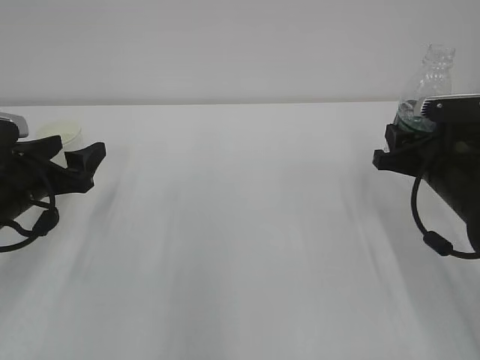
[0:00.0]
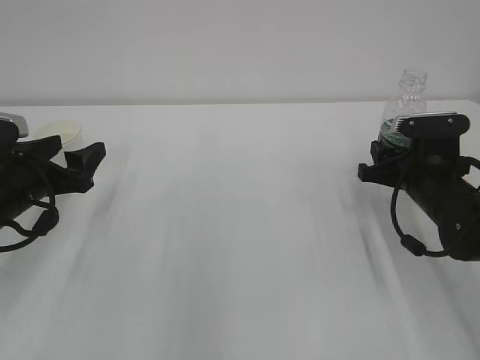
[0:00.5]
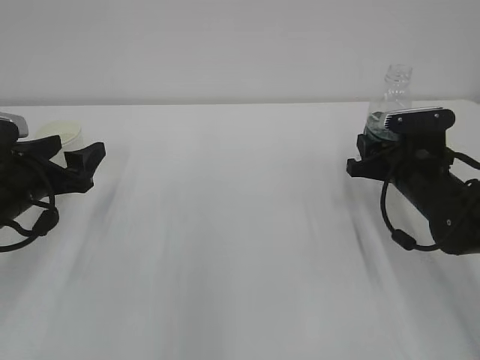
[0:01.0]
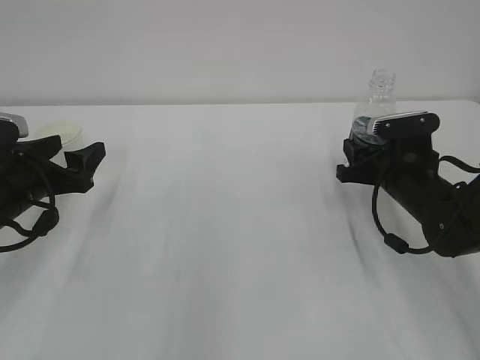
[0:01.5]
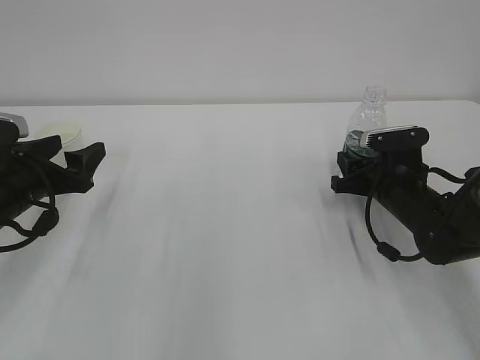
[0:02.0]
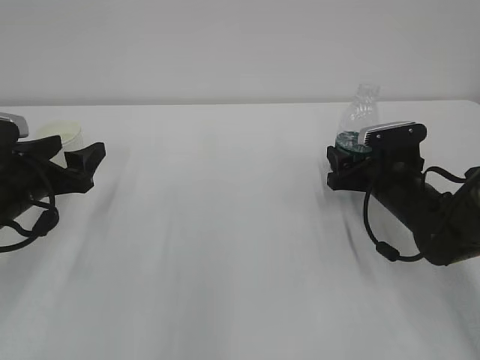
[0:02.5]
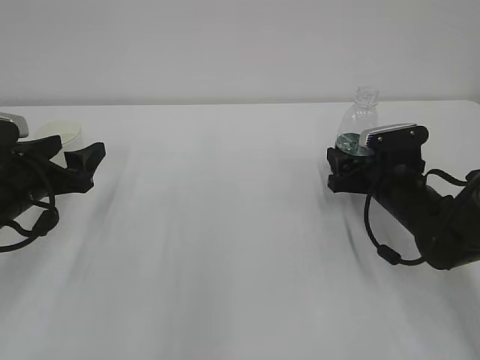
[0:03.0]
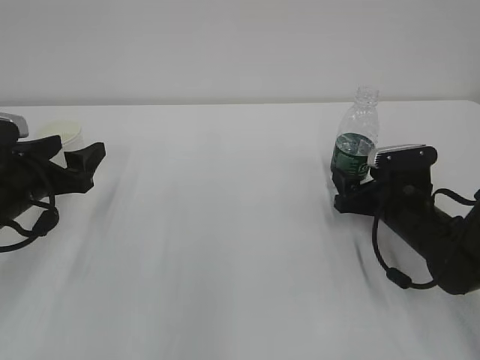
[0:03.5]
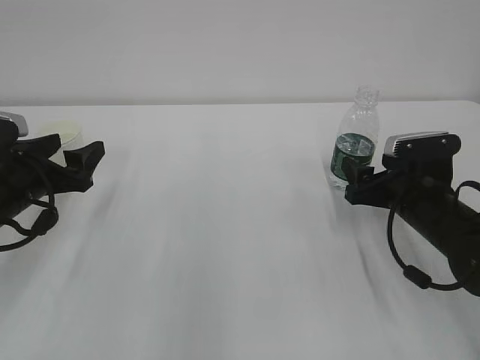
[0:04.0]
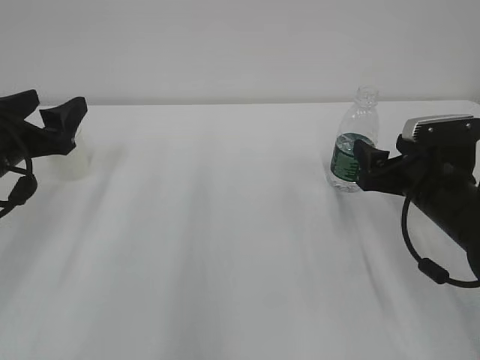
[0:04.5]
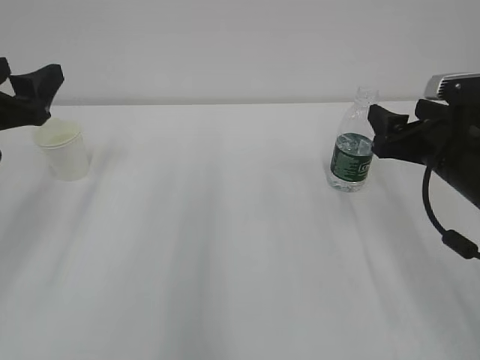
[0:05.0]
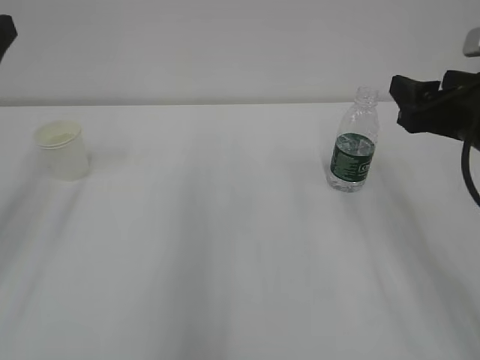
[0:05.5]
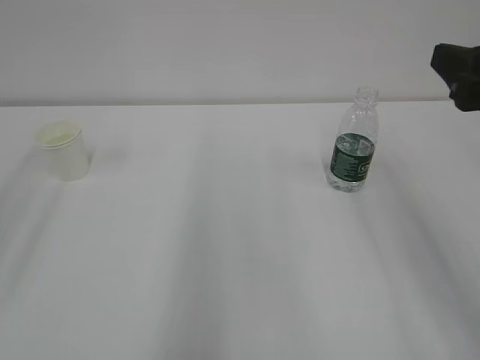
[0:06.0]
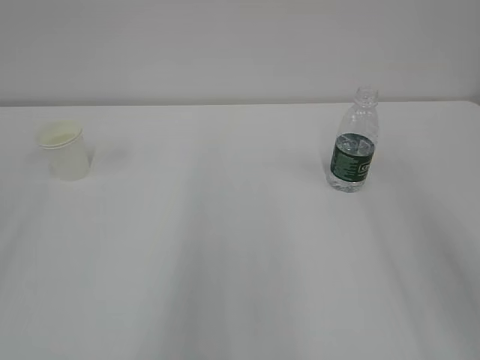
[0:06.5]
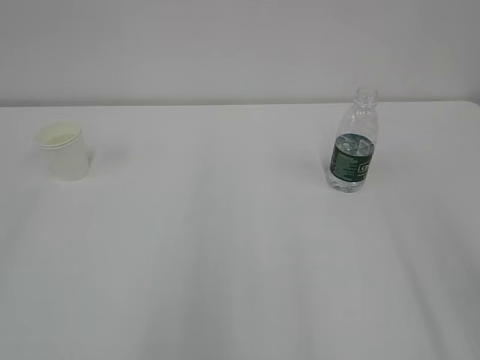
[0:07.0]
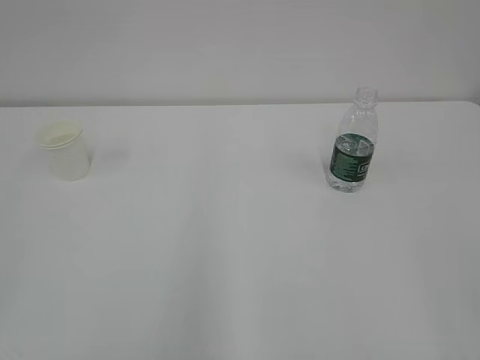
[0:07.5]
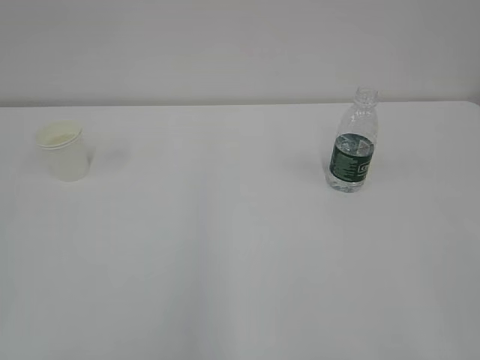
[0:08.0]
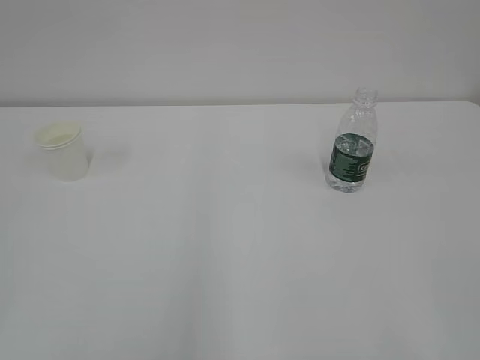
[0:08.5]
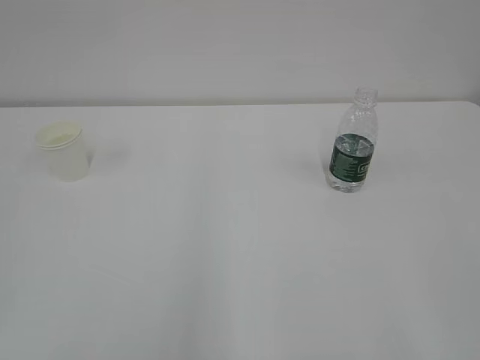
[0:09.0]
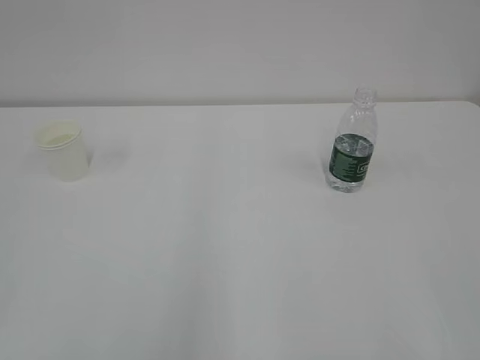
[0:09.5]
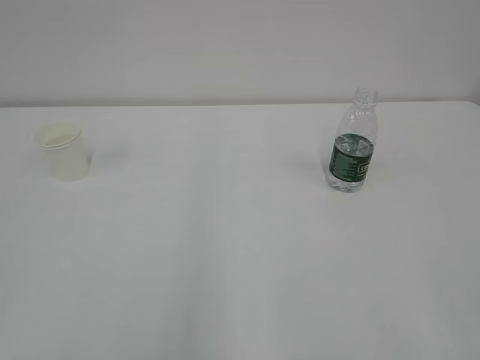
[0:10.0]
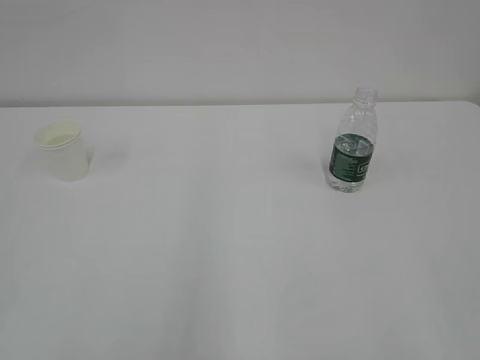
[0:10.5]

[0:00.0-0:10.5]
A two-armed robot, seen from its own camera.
0:00.0 to 0:02.0: The right gripper is displaced downward and forward by some 10 cm.
0:02.0 to 0:04.0: The right gripper shifts by about 5 cm, and opens.
0:04.0 to 0:06.5: The grippers both shift upward and backward by some 30 cm.

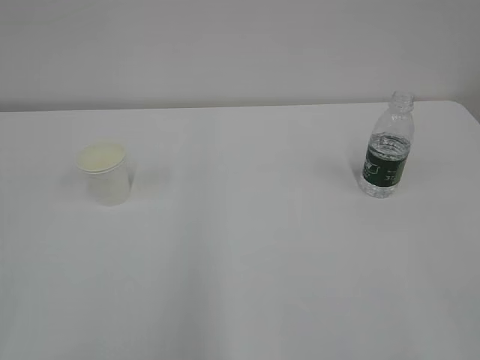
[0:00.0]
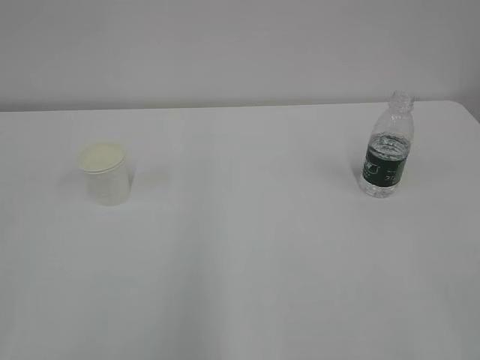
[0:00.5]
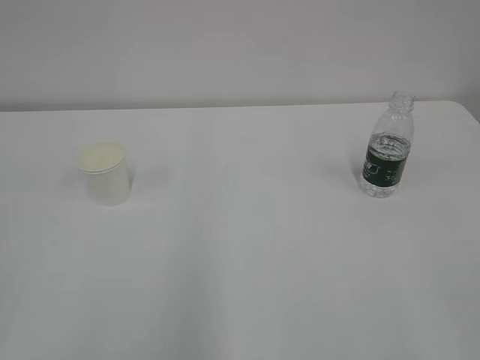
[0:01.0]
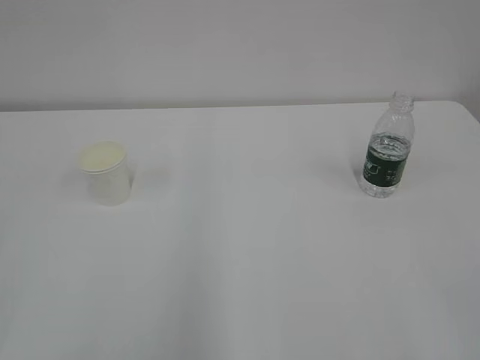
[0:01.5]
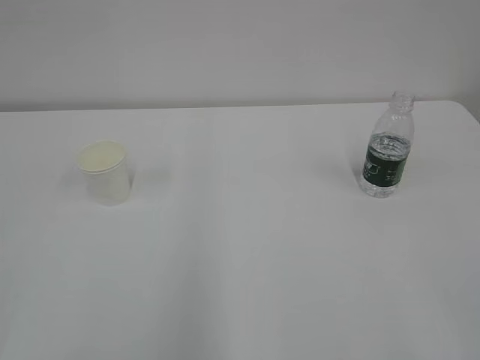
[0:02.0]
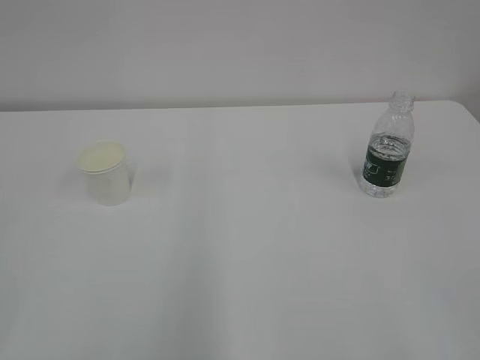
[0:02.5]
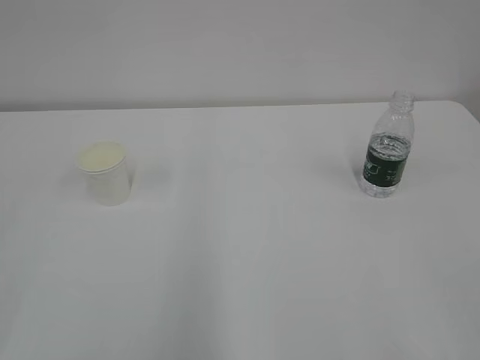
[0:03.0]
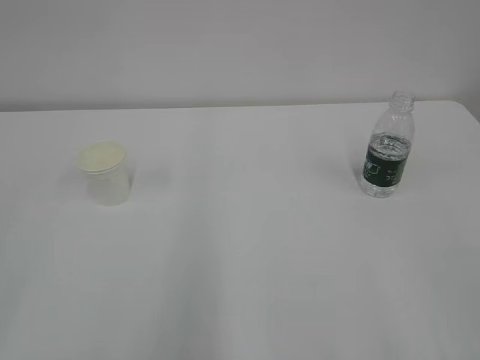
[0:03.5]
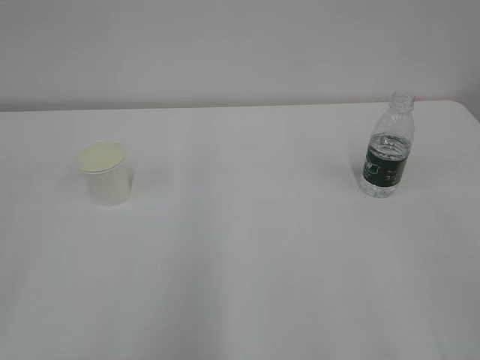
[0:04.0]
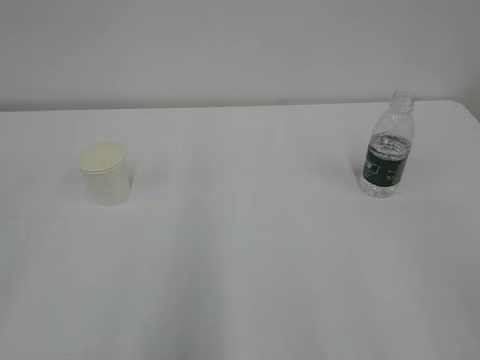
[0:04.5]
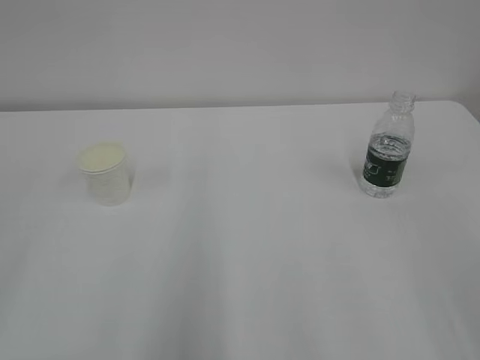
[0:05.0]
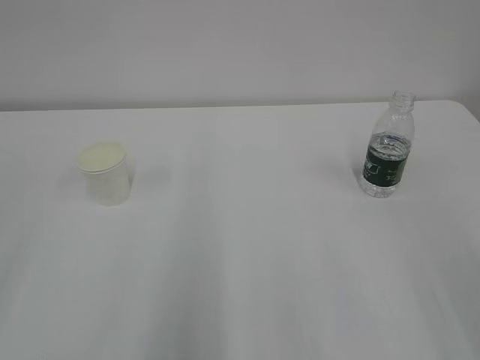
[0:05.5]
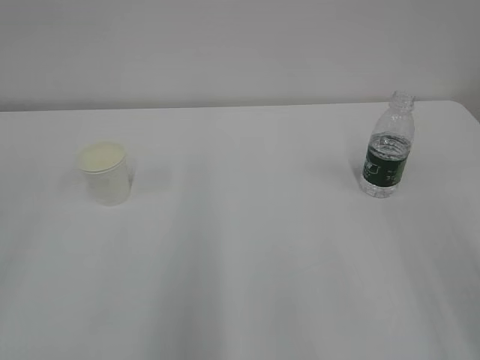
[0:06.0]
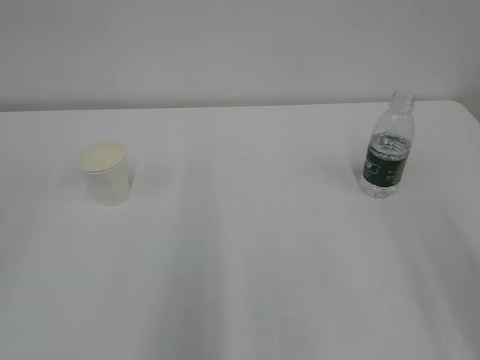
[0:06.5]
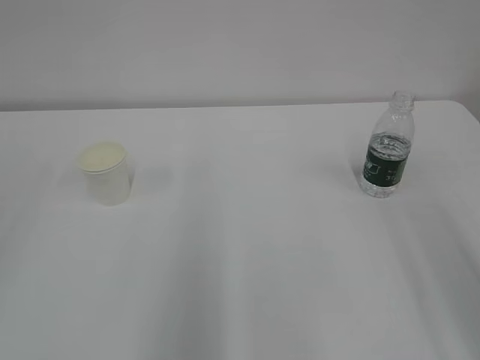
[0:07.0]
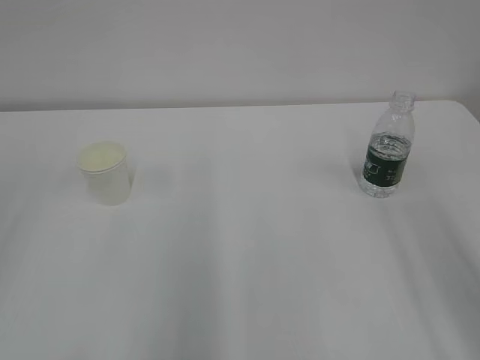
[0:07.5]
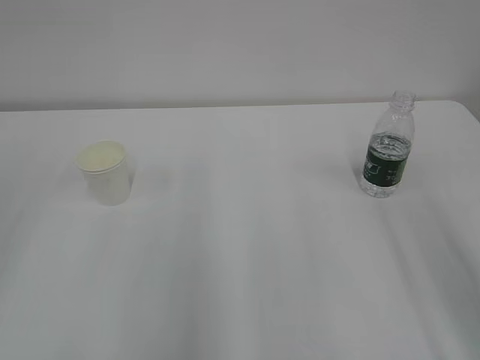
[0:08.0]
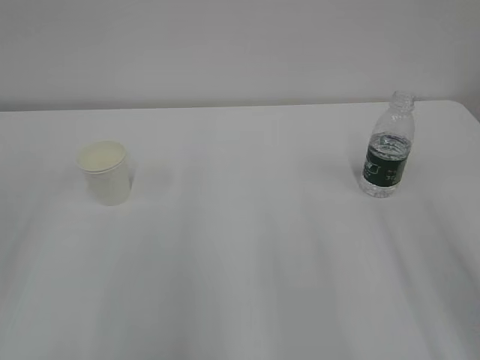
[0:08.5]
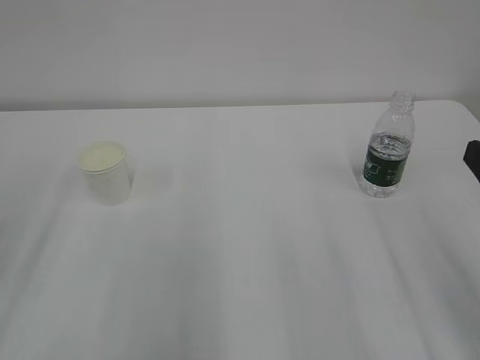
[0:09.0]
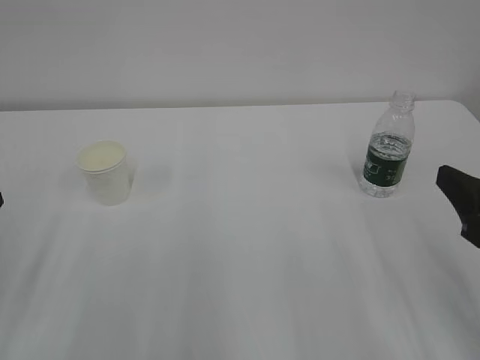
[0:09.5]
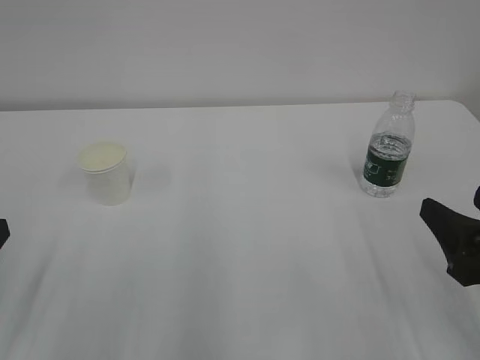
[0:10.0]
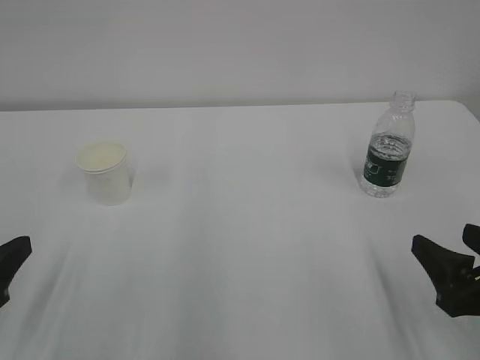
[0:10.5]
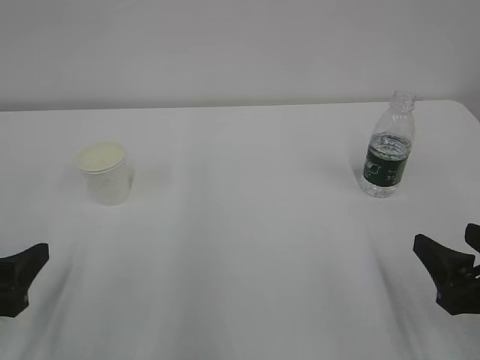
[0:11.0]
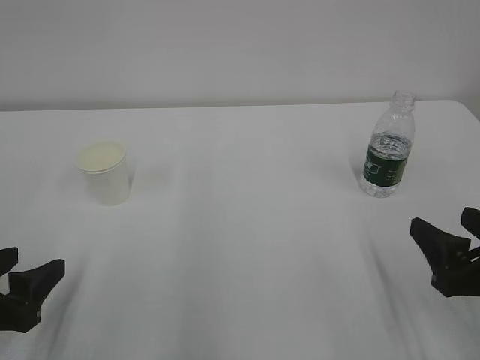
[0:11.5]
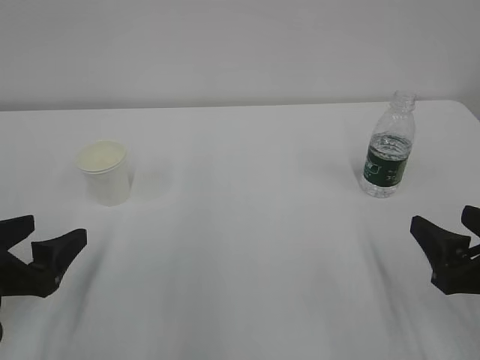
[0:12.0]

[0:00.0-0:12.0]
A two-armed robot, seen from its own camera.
0:08.0 to 0:10.0: The right gripper heads downward, covering roughly 10 cm.
0:10.0 to 0:12.0: The left gripper shifts by approximately 5 cm, and opens.

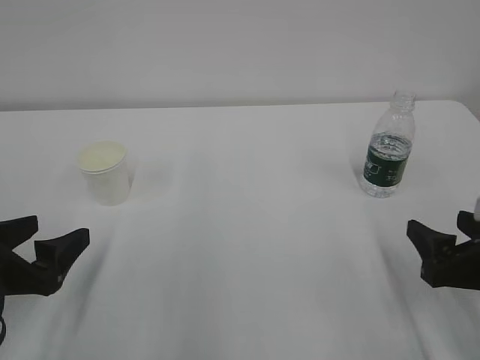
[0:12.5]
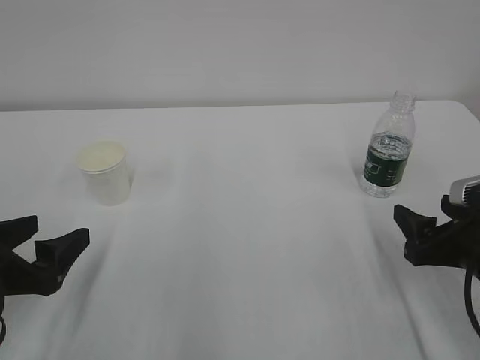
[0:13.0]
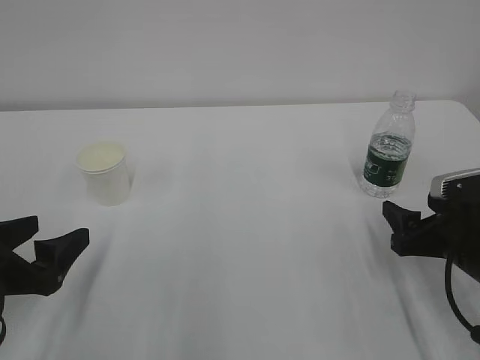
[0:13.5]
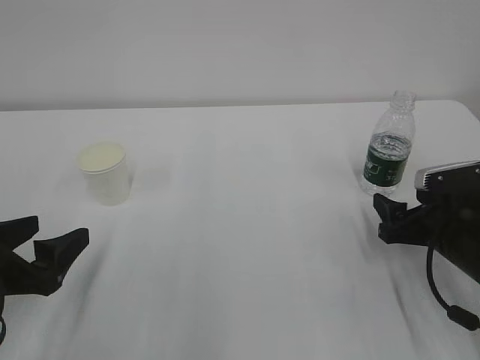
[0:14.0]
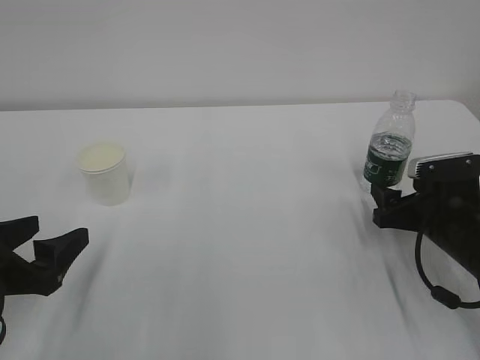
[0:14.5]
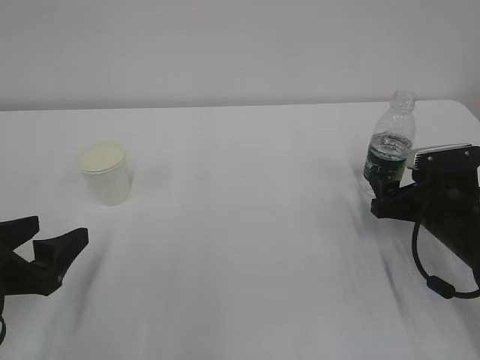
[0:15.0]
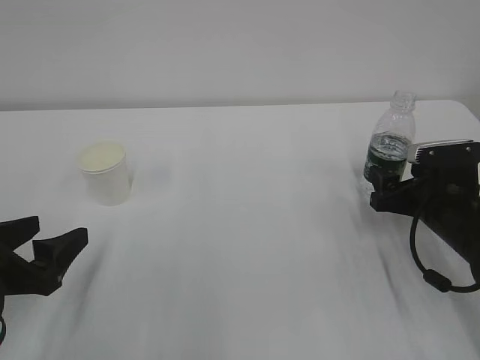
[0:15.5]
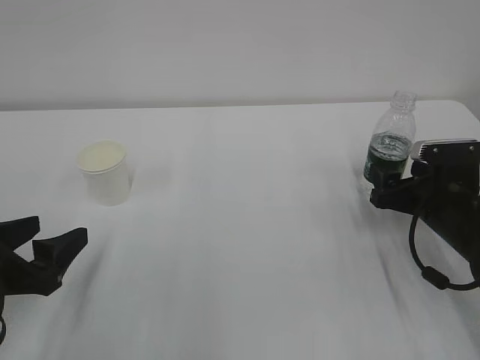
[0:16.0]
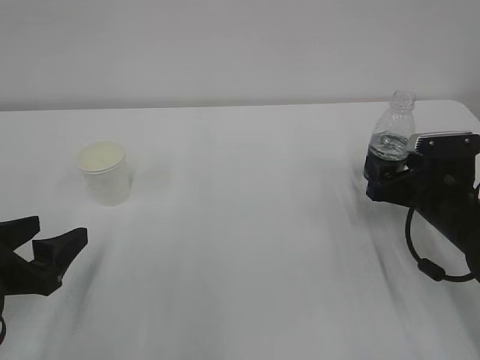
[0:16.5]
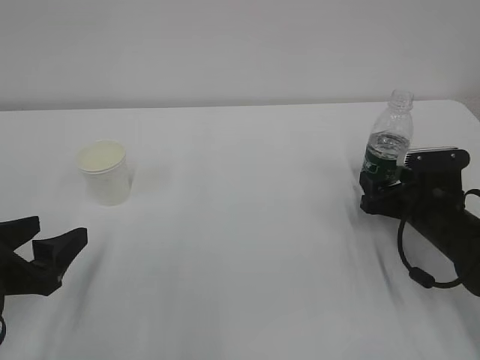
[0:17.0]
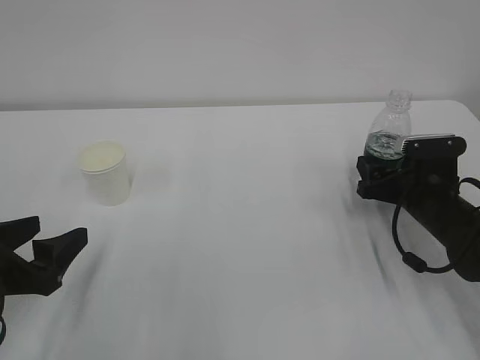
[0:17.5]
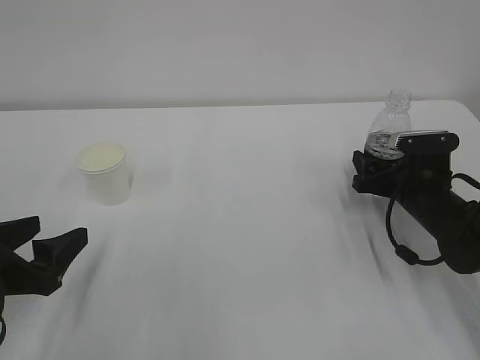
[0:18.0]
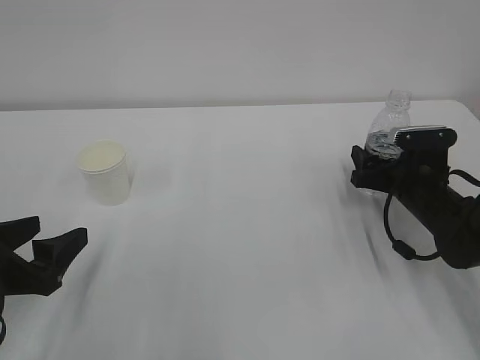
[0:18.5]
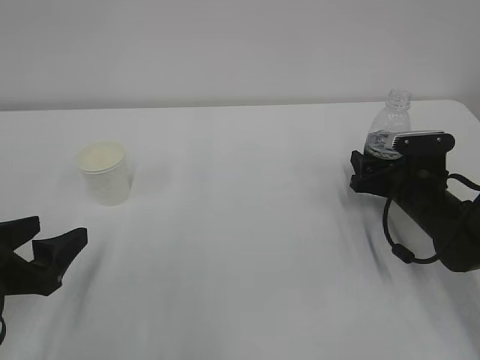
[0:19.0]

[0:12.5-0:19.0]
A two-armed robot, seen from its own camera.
0:12.5 to 0:14.5: The right gripper moves forward, about 10 cm.
0:14.5 to 0:17.0: The grippers stay close to where they were, moving slightly.
0:17.0 to 0:19.0: The grippers move only a little.
